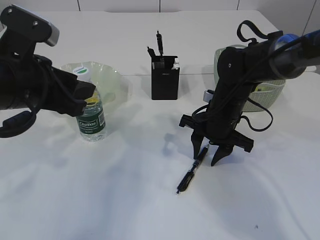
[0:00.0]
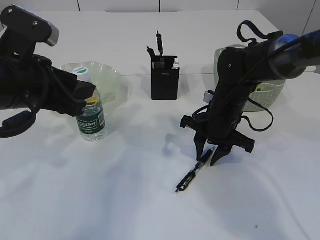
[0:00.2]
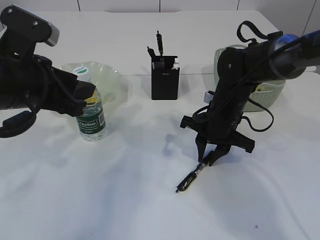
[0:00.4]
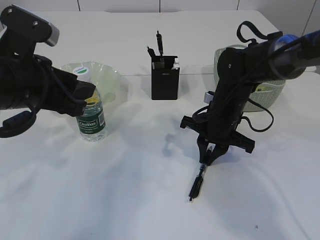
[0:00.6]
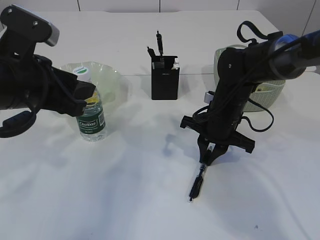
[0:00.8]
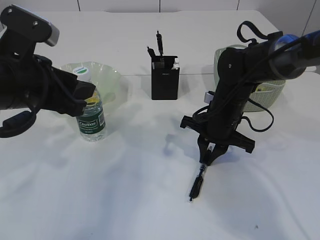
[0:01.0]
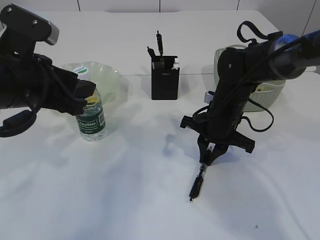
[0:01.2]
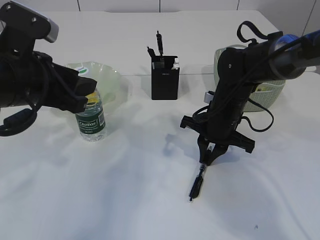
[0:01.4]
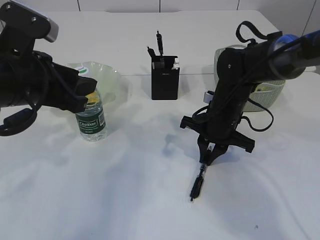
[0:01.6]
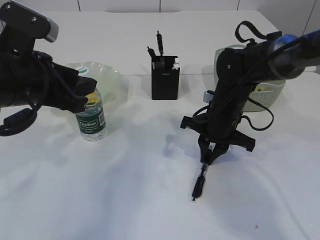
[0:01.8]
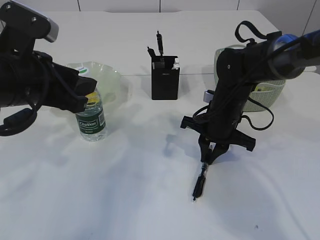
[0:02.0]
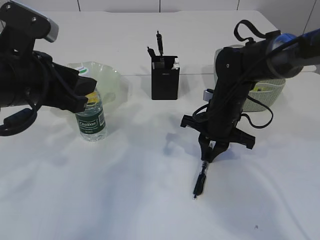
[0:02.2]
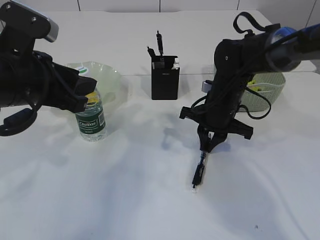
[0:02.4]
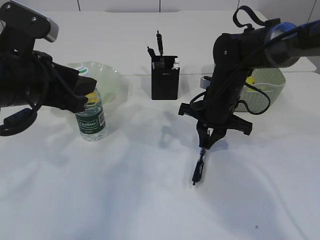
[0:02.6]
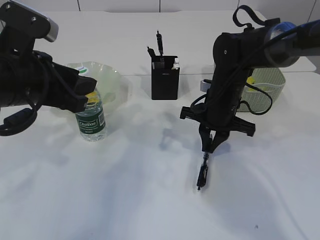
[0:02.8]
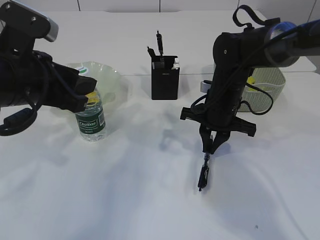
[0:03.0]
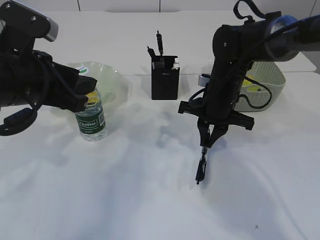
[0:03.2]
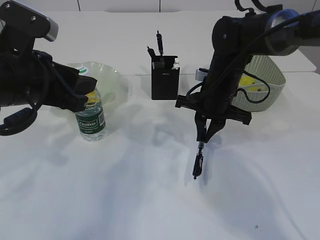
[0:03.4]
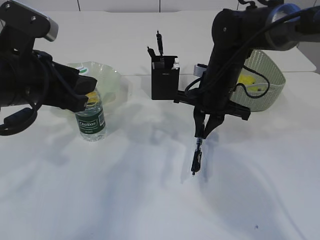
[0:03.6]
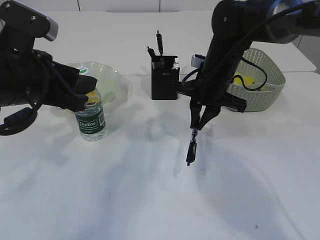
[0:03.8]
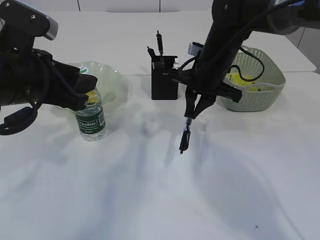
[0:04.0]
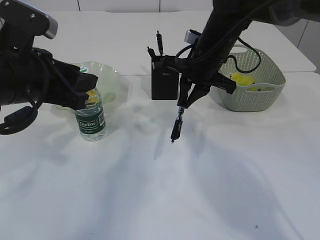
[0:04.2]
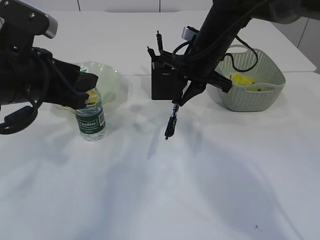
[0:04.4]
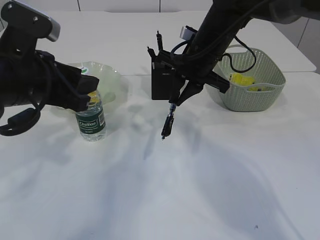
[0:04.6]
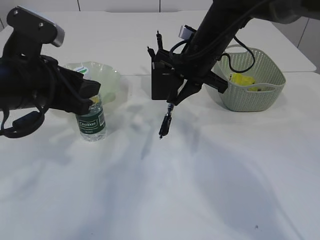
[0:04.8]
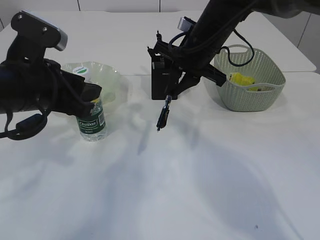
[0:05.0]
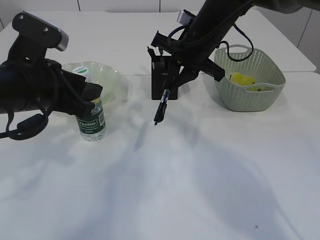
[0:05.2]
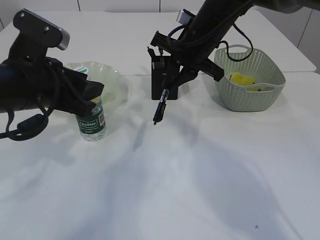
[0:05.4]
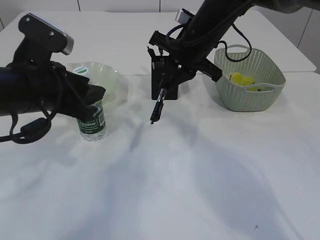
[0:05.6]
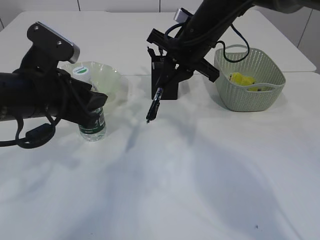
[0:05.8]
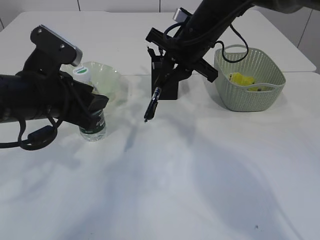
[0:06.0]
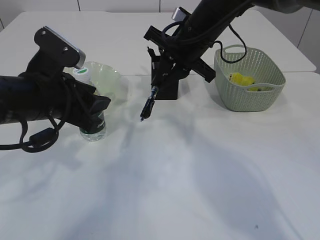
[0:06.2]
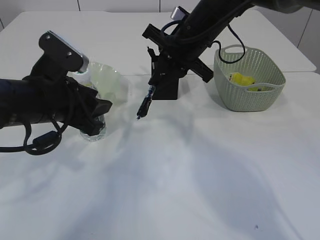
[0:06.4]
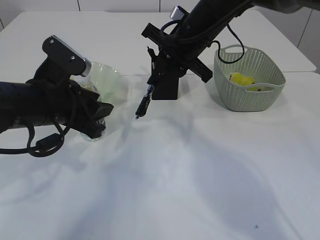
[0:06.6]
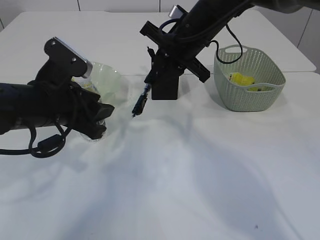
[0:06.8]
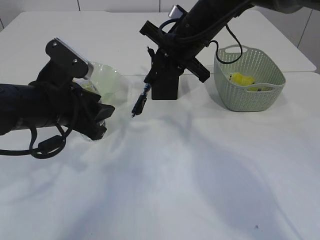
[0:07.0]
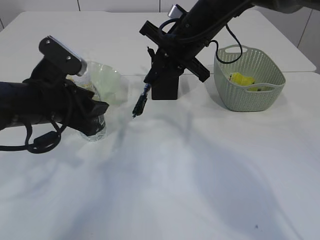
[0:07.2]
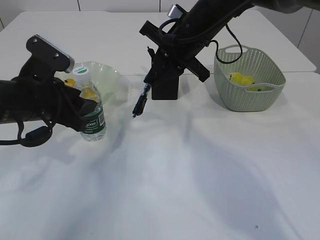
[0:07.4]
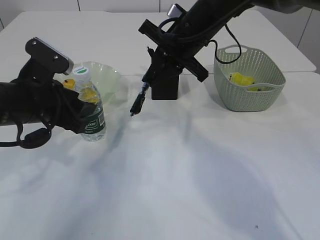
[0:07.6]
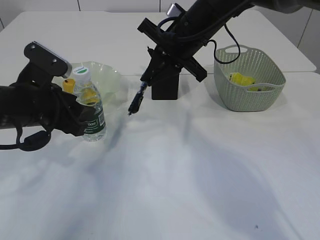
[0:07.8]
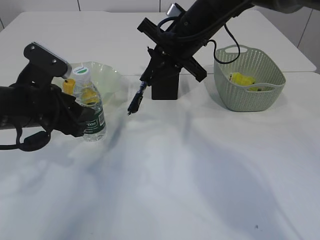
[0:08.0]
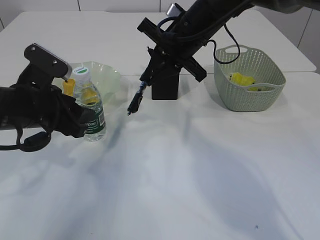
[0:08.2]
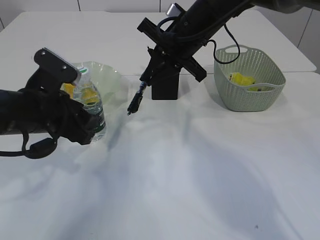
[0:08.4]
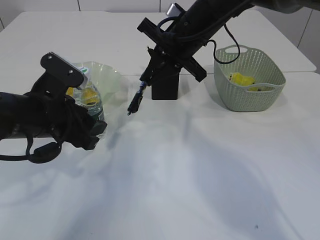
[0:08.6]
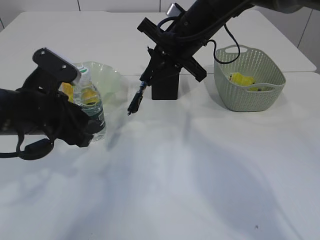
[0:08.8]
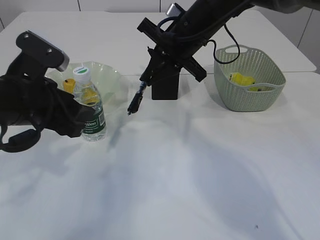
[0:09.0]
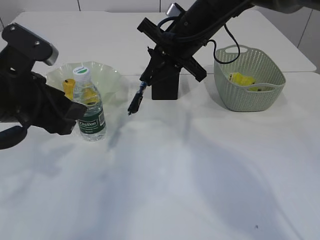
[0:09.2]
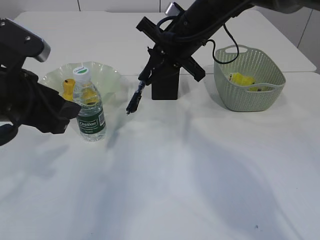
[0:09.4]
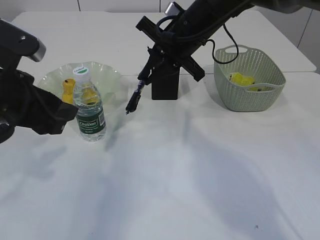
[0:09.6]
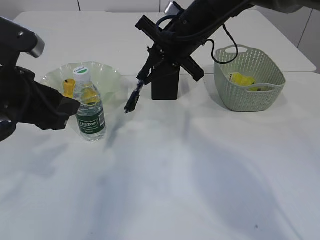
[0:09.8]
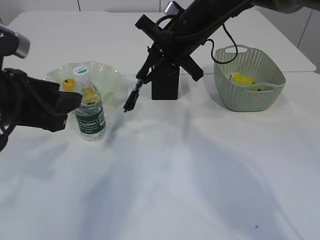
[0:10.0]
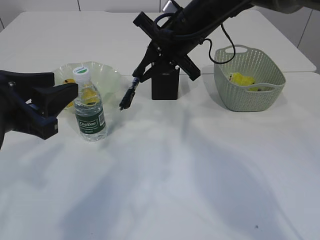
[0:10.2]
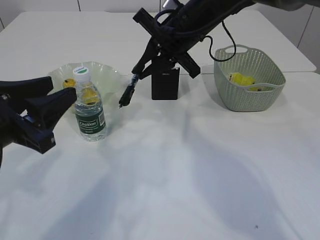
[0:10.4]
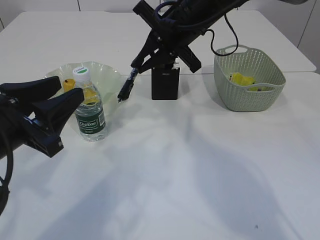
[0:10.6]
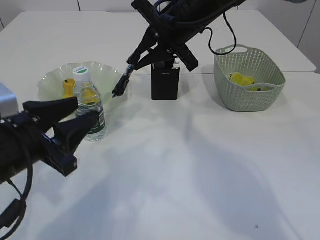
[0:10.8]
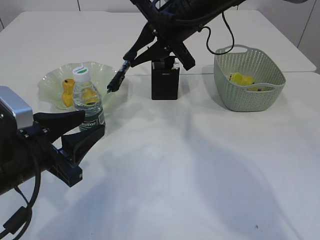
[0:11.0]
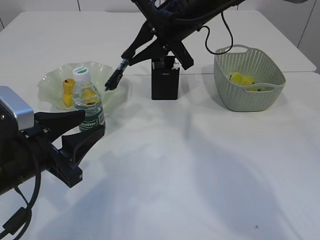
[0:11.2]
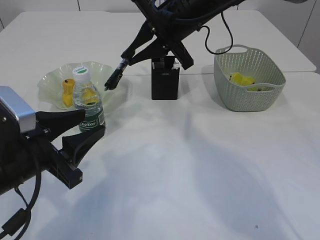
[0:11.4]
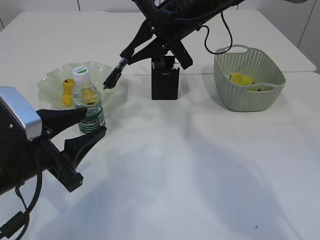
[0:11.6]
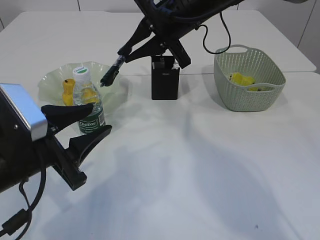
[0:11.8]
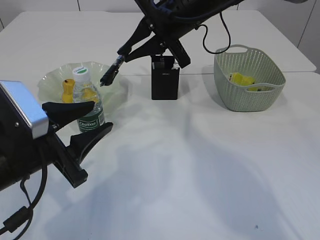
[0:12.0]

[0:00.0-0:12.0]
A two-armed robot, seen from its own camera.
Step, 0:00.0 to 0:03.6: Pick up the pen with right arm.
0:00.0 to 0:01.6: The right gripper closes up.
0:01.6 to 0:03.0: There are only small adjustments of the grippers.
0:03.0 to 0:04.4: The right gripper travels upward by approximately 10 cm.
0:04.4 to 0:06.0: The grippers stay close to where they were, moving slightly.
0:06.0 to 0:09.0: The grippers stay close to where they were, moving slightly.
0:09.0 to 0:10.4: The left gripper heads backward, covering about 5 cm.
0:10.4 to 0:12.0: The left gripper travels downward by roughly 5 cm.

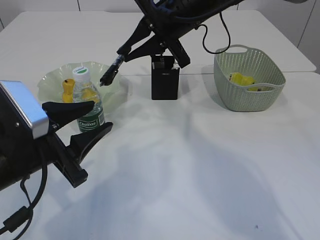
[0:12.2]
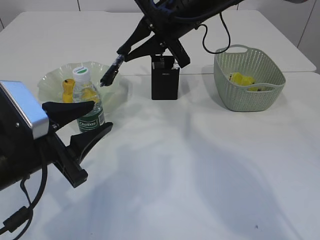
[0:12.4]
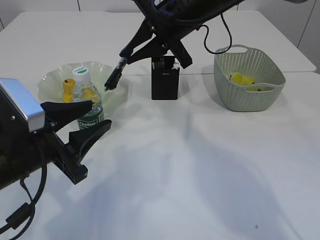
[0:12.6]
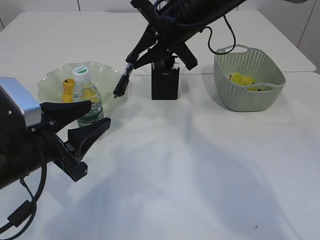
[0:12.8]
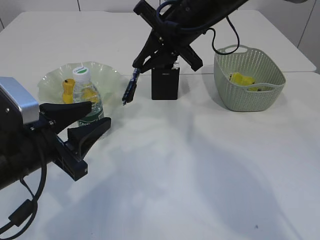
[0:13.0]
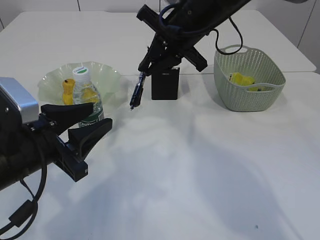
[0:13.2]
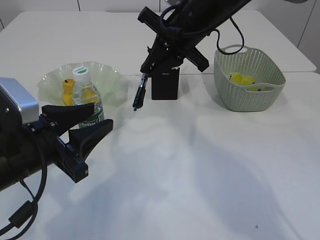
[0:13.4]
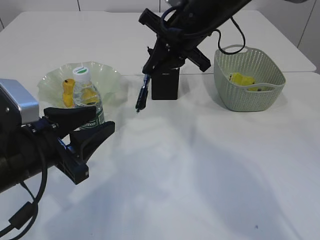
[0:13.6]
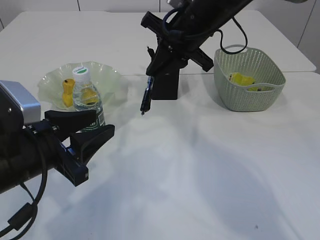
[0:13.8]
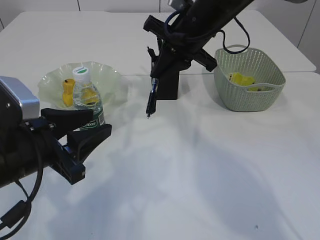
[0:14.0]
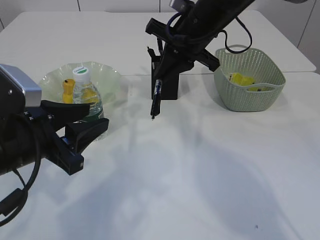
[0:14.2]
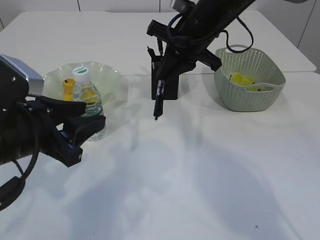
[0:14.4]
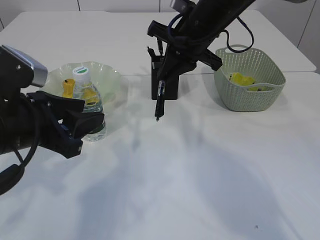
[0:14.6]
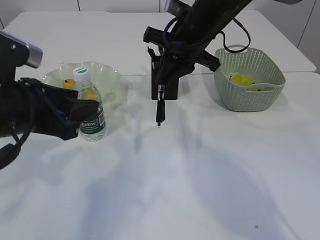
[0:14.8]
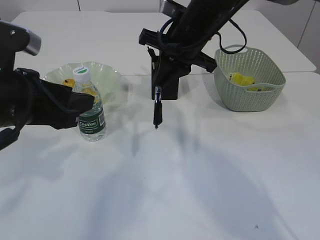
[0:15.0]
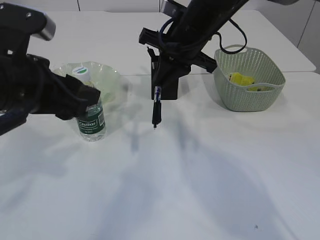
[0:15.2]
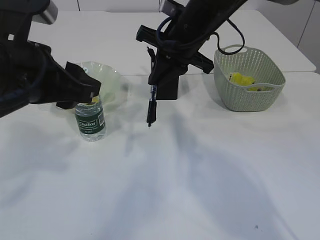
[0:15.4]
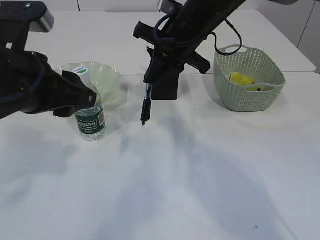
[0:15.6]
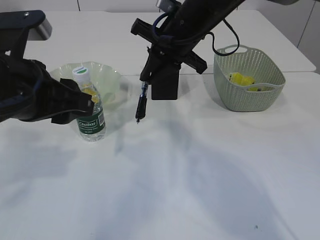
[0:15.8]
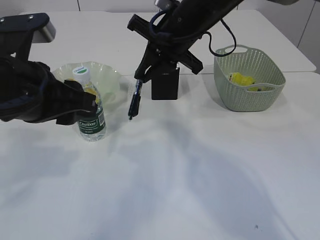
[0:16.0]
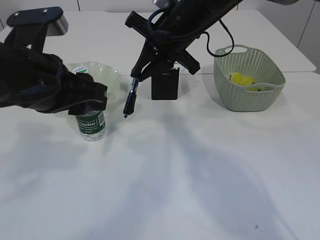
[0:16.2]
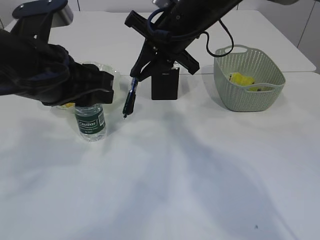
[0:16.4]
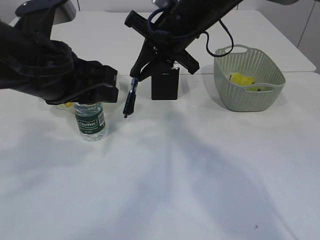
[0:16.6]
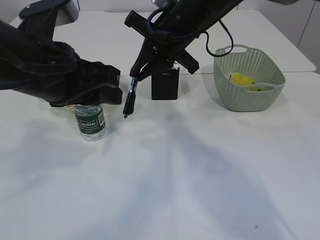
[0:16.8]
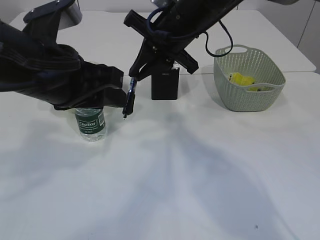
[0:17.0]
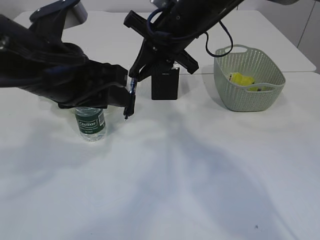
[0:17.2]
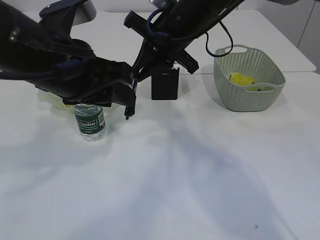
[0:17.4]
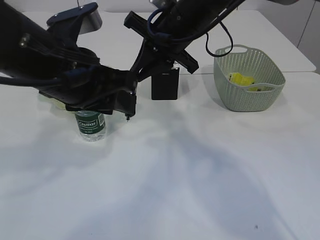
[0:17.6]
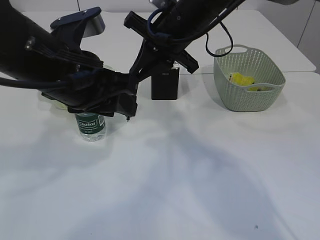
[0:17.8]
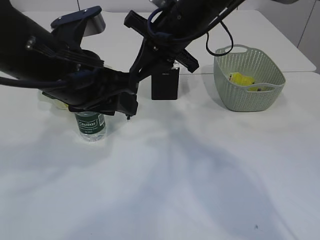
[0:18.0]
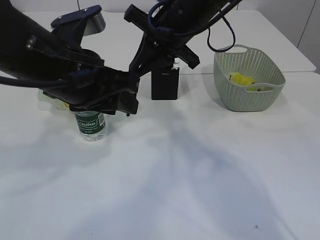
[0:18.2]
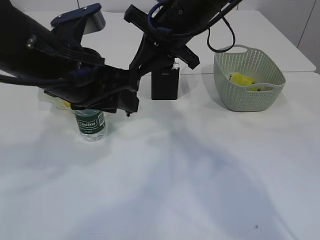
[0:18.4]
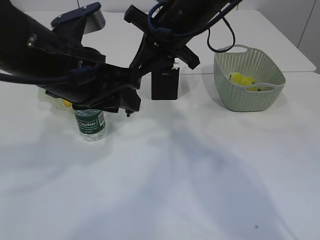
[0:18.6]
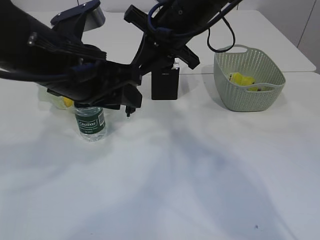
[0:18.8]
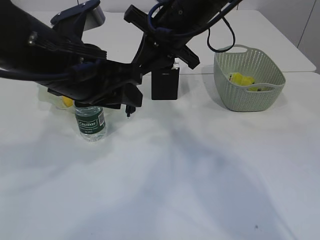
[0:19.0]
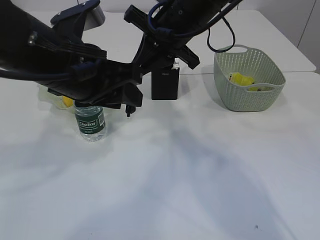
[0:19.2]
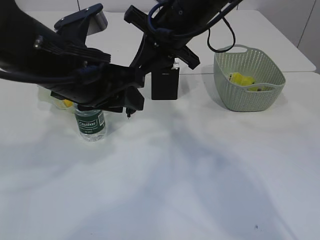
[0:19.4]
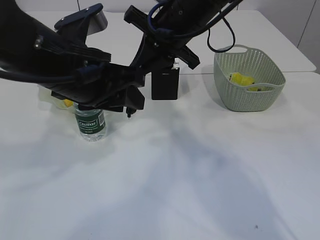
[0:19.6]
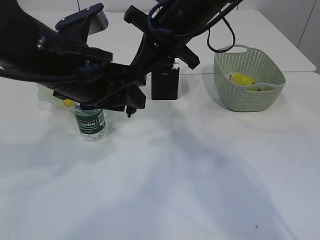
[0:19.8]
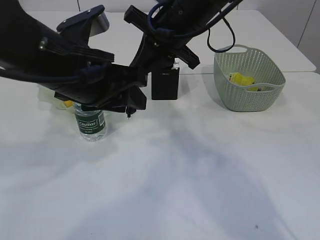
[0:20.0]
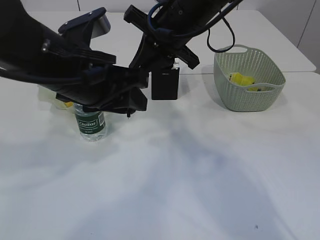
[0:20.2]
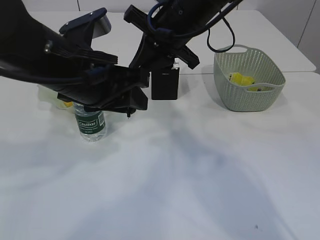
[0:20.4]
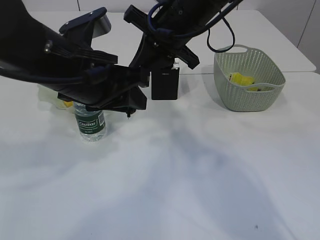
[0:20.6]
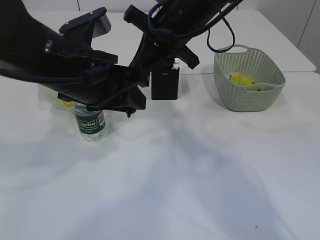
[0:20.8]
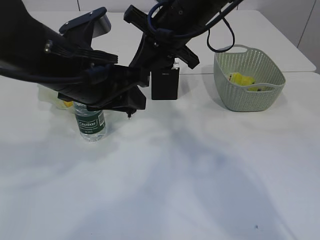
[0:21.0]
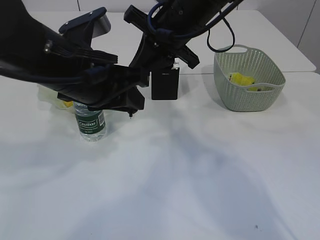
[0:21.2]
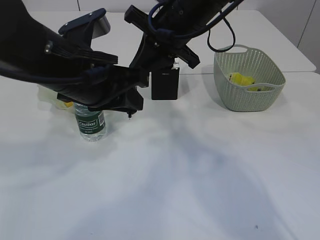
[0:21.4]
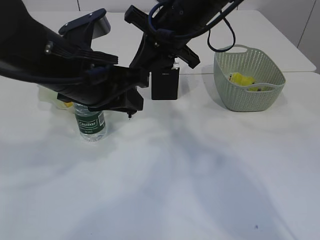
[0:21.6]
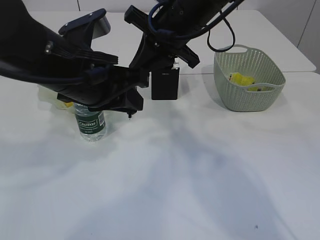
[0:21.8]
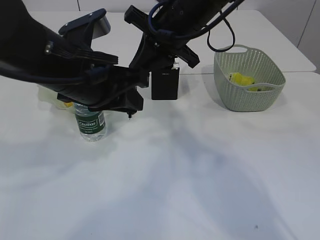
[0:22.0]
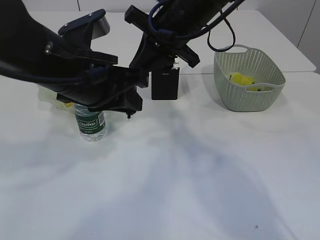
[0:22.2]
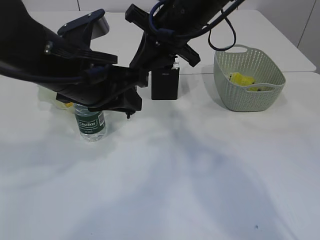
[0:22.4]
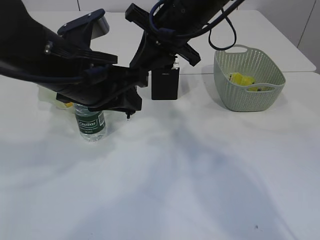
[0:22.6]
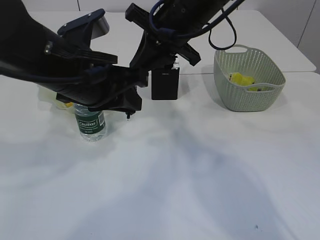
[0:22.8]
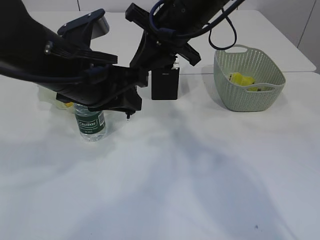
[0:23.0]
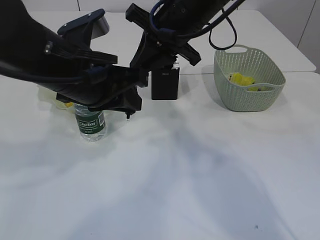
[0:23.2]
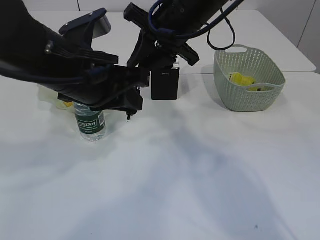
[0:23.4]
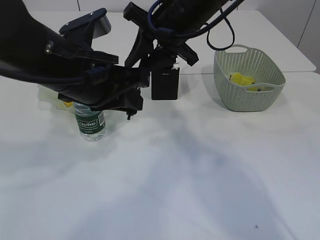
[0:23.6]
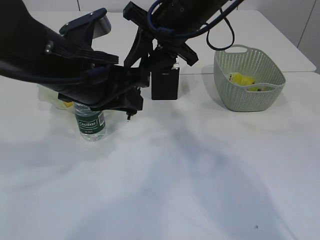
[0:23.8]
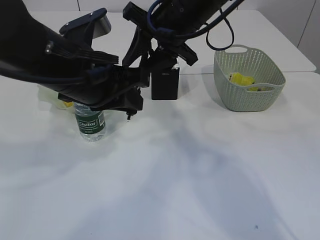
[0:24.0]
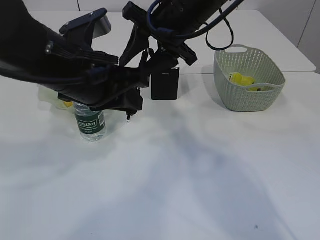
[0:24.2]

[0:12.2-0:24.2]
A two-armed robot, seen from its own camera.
0:12.2 to 0:13.8: There are only small adjustments of the grippers.
0:13.8 to 0:15.2: The left gripper goes some 10 cm upward.
0:16.6 to 0:19.8: There are only small adjustments of the grippers.
0:19.8 to 0:22.6: Both grippers stay put.
0:22.6 to 0:24.2: The right gripper opens up.
